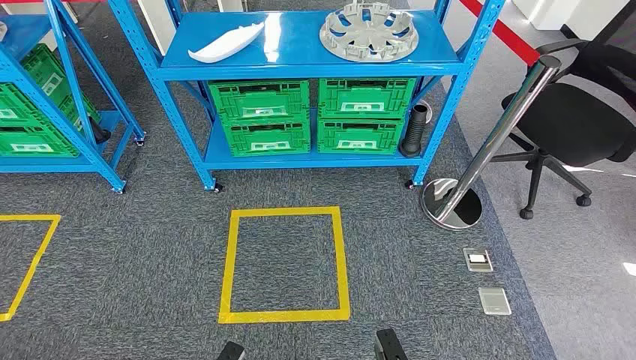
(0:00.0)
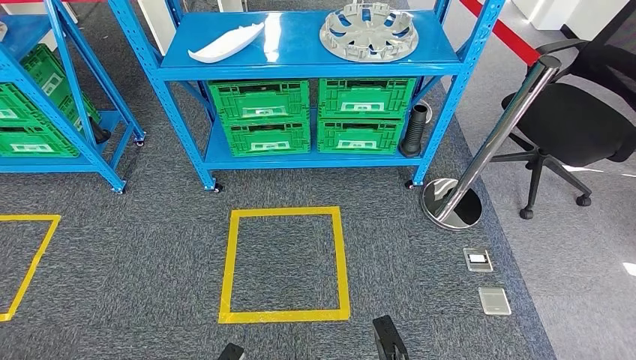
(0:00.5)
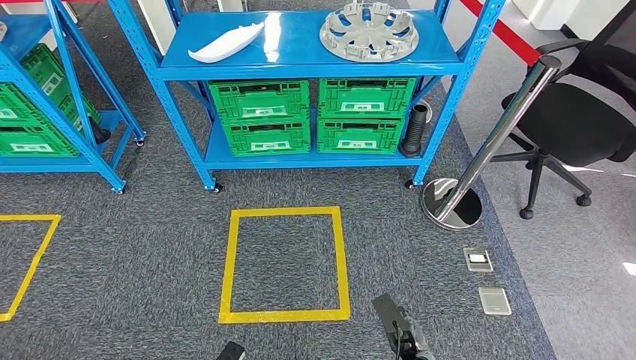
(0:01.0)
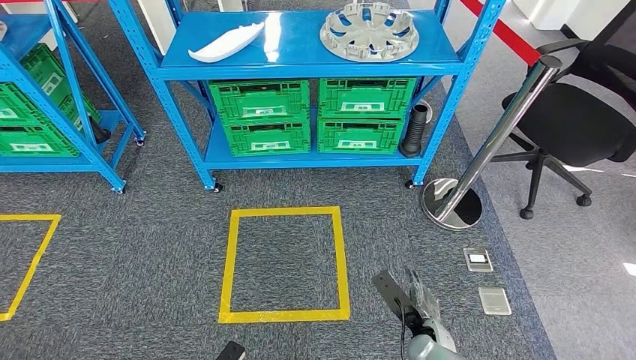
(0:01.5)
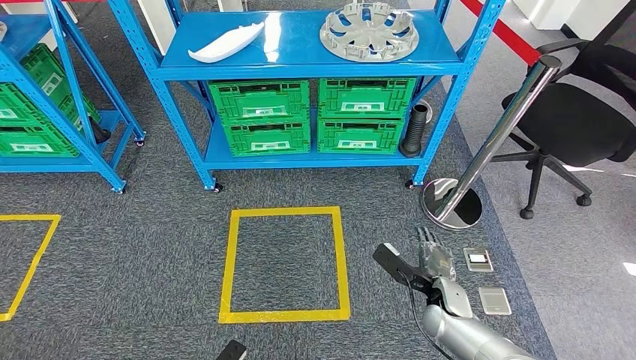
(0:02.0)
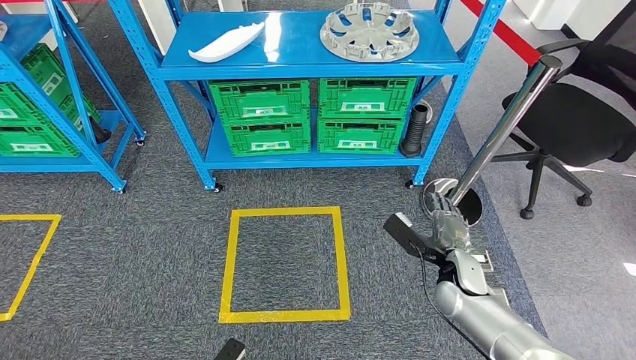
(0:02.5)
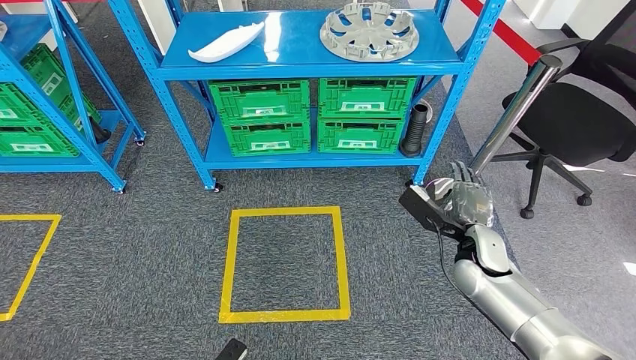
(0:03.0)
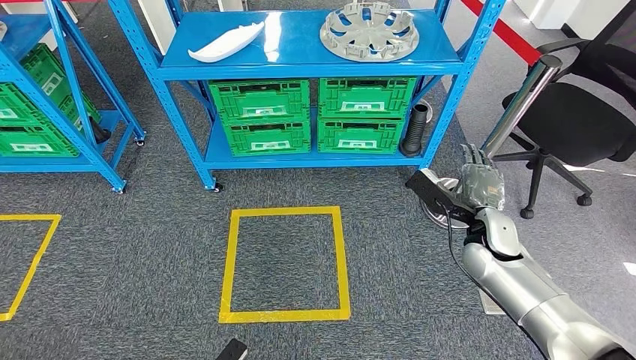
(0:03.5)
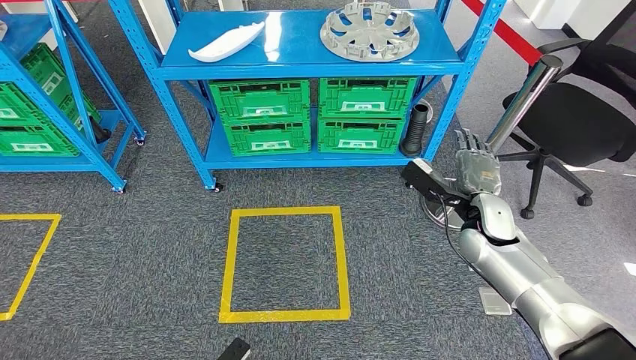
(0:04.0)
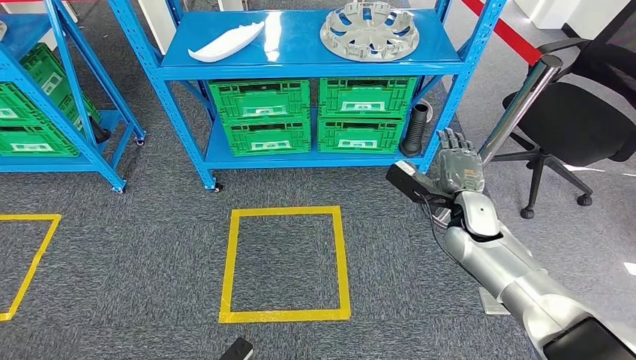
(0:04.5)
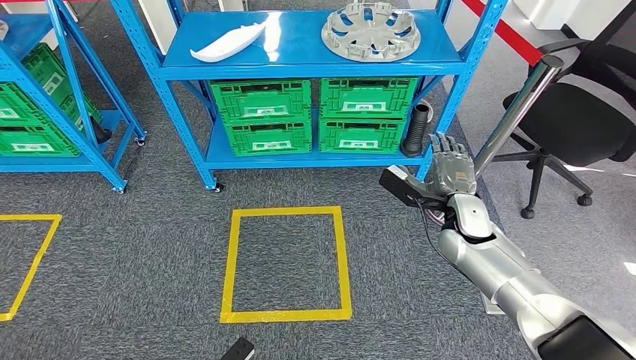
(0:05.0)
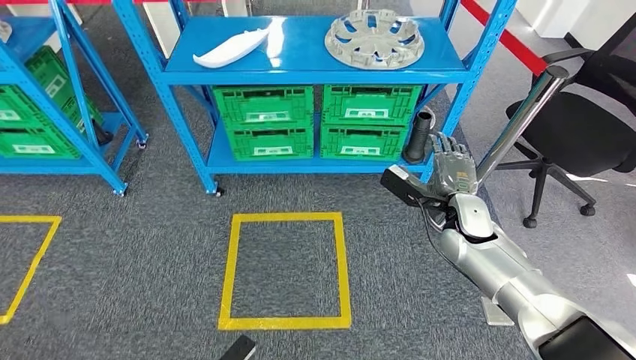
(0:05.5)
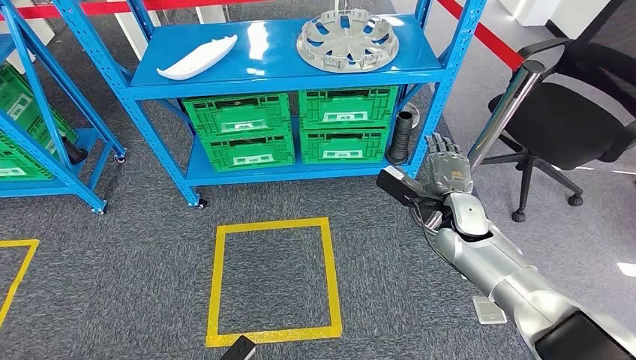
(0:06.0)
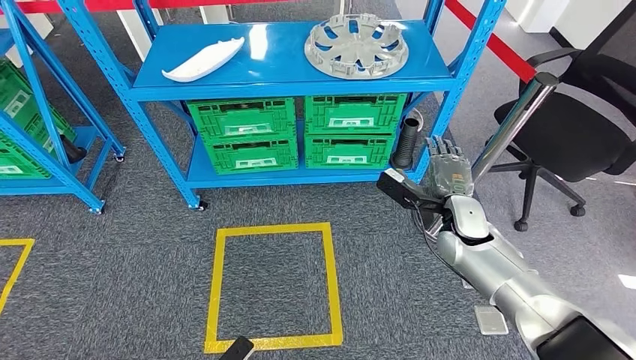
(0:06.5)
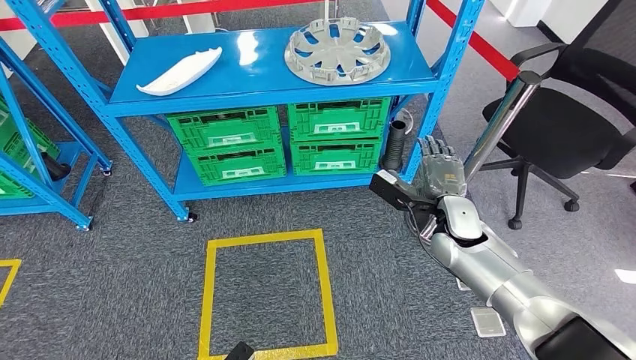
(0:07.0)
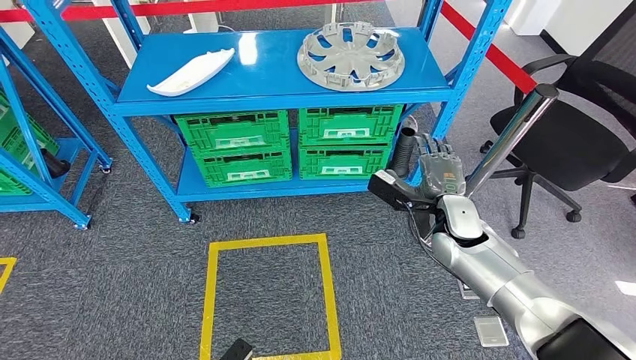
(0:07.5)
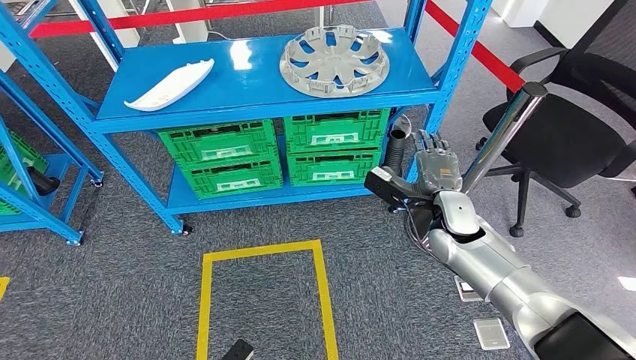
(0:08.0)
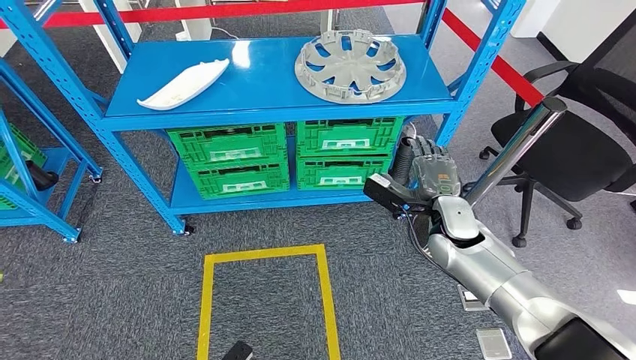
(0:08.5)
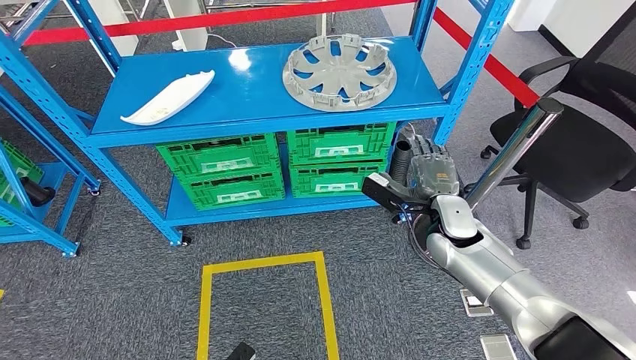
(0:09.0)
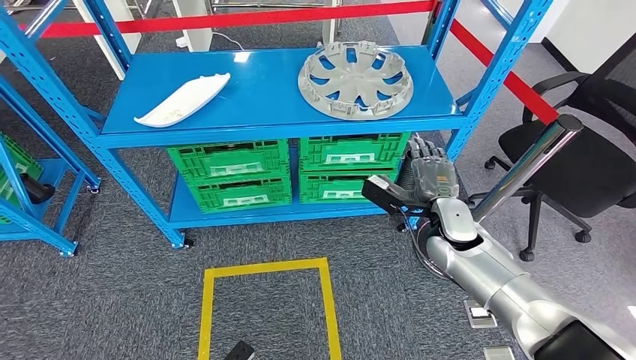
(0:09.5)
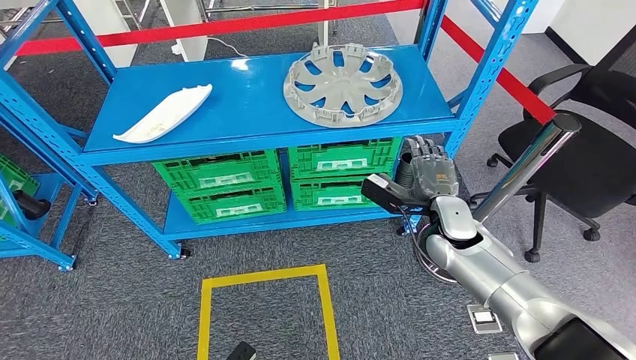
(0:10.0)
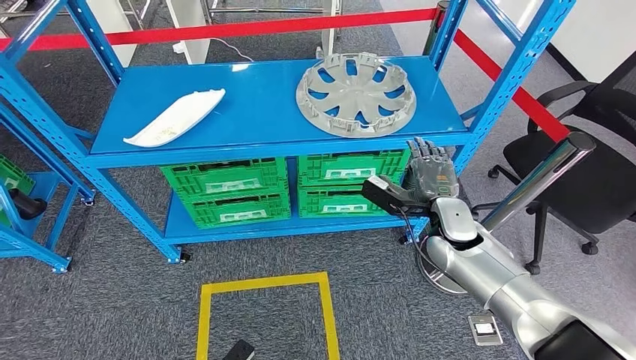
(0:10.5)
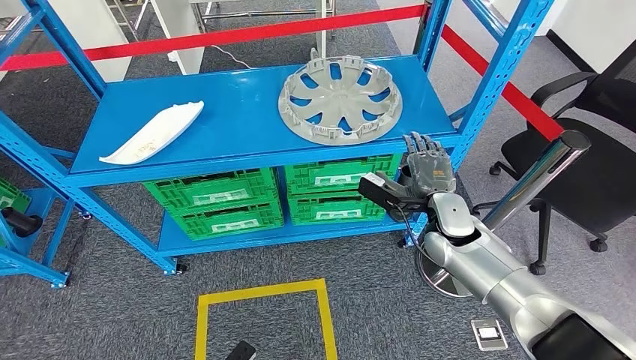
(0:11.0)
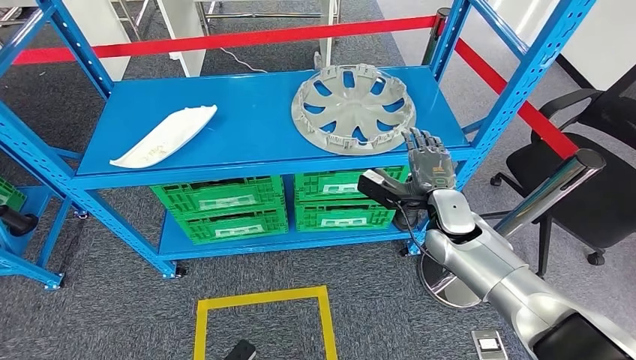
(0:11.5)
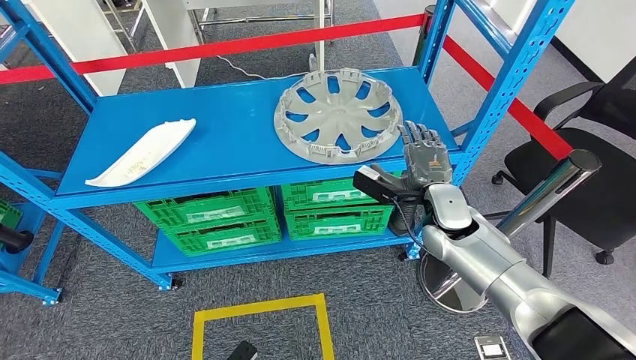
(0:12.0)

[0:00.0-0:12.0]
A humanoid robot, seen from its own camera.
0:02.0 to 0:04.0: The right hand moves upward and forward, some 20 cm.

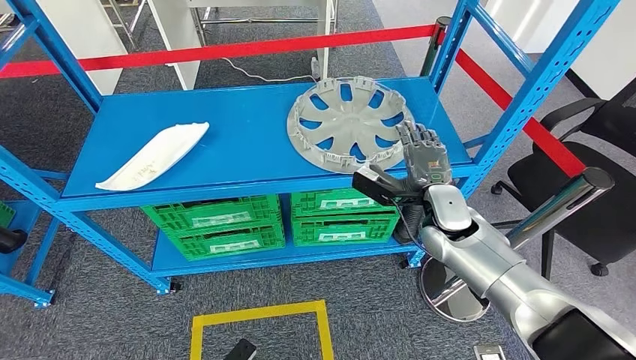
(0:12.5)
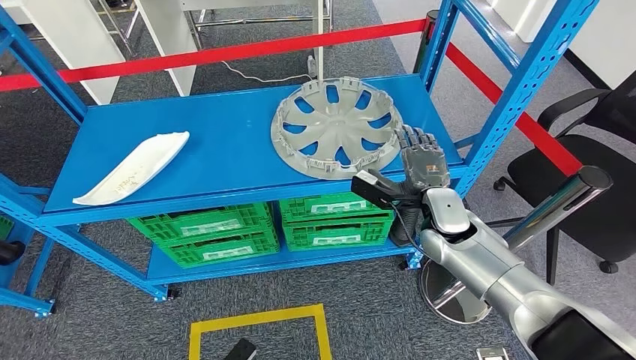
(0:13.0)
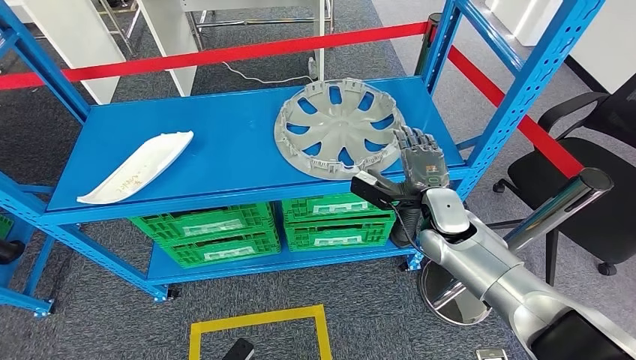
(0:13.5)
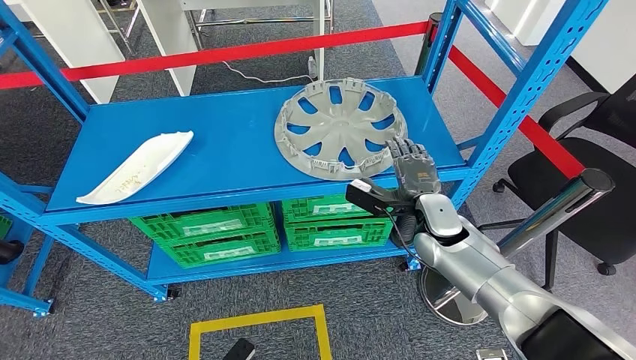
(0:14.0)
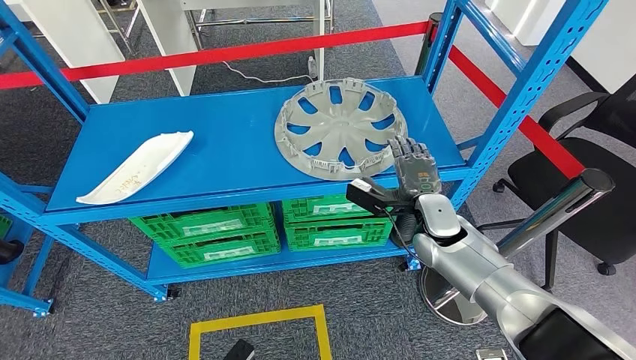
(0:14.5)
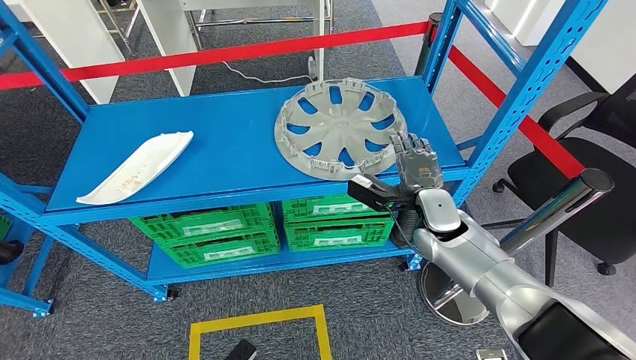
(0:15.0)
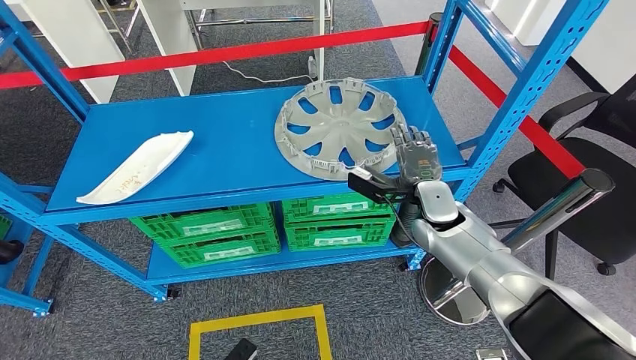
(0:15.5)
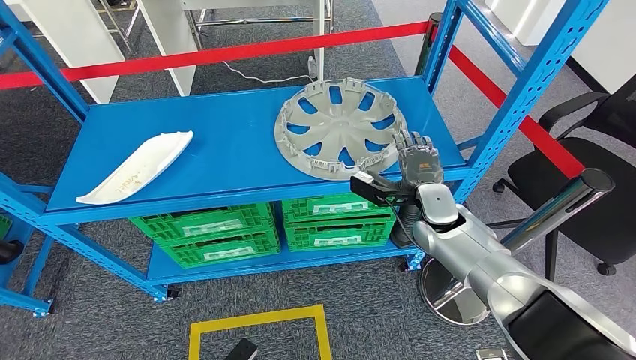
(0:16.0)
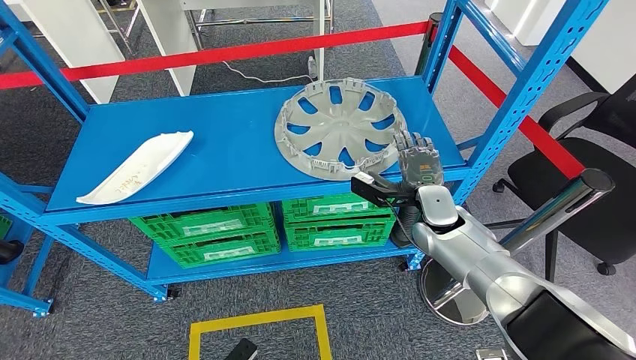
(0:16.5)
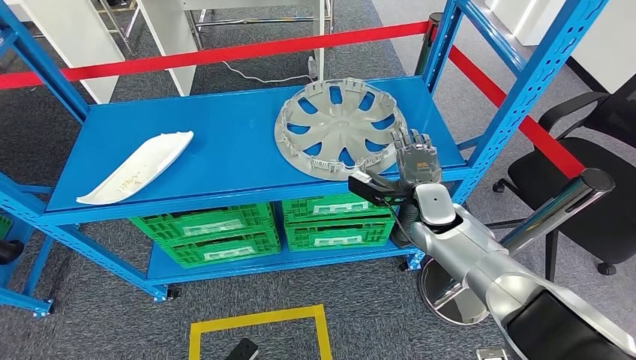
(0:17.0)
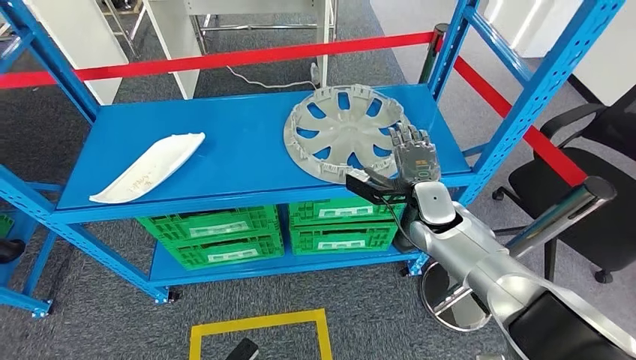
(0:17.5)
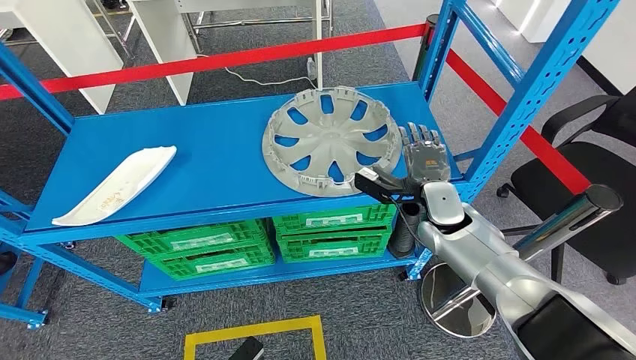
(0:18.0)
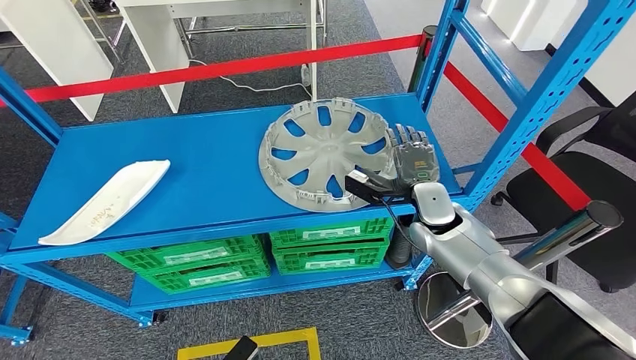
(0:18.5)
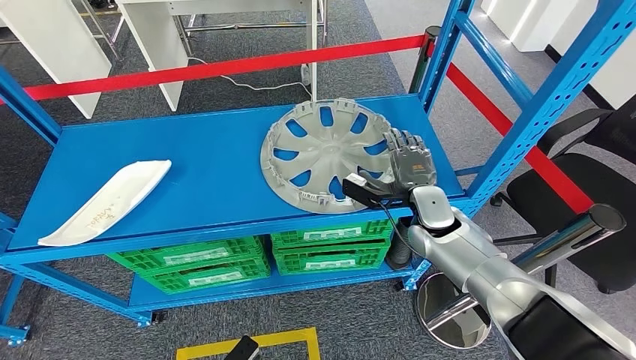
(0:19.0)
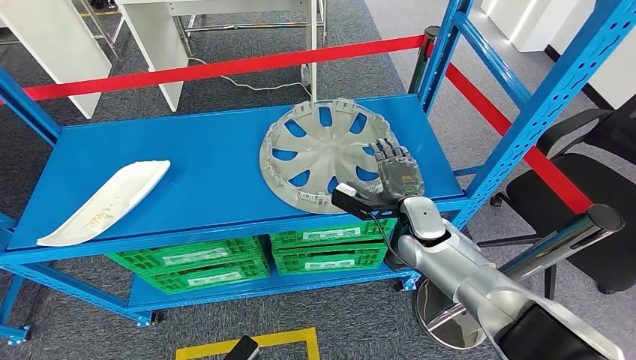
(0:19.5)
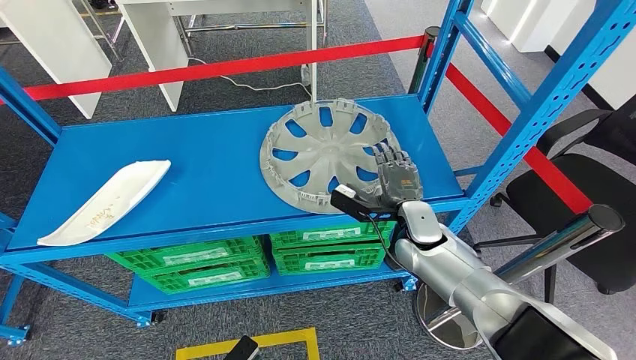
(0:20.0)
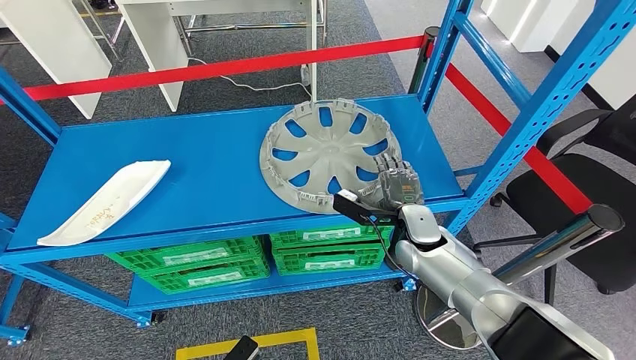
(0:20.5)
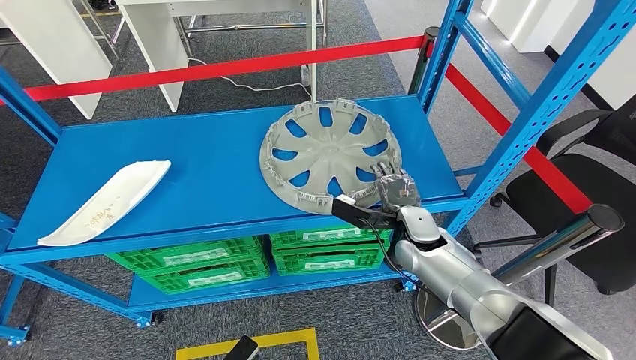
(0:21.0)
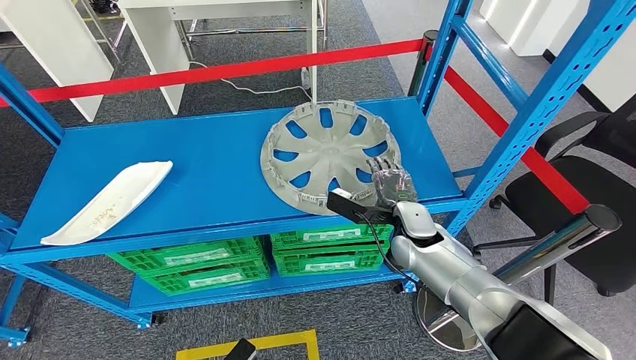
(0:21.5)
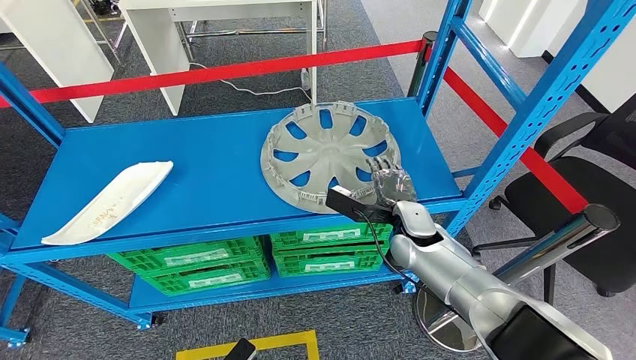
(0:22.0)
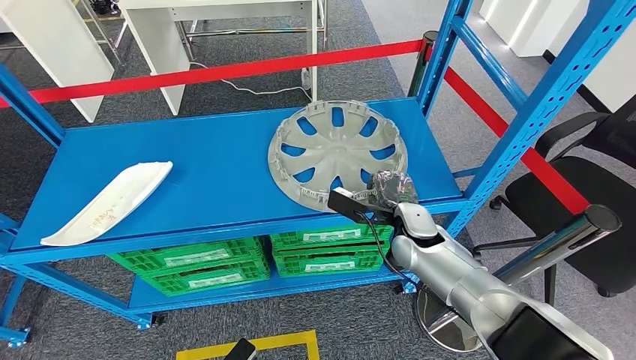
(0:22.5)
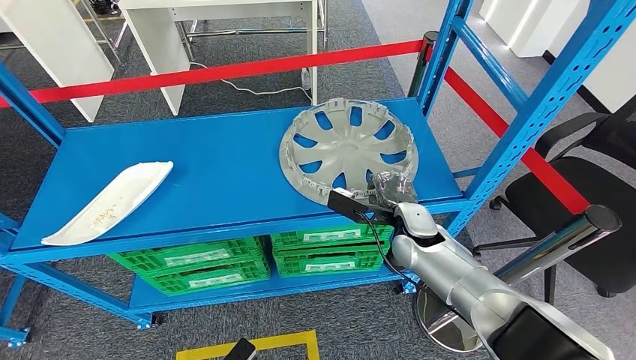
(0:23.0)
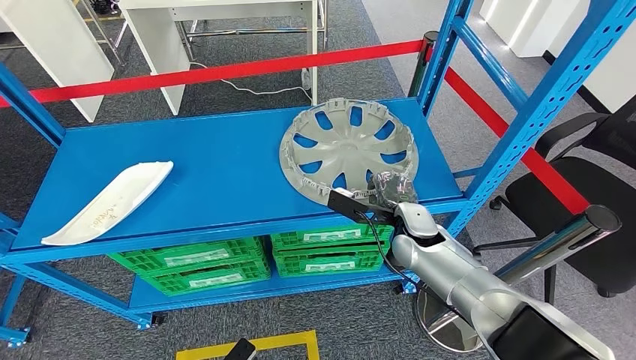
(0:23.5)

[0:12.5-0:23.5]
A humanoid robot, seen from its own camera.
0:14.5 to 0:16.0: The hands stay close to where they were, moving slightly.
0:20.0 to 0:21.5: The hands make only small movements.
0:21.5 to 0:23.5: Neither hand changes place.
